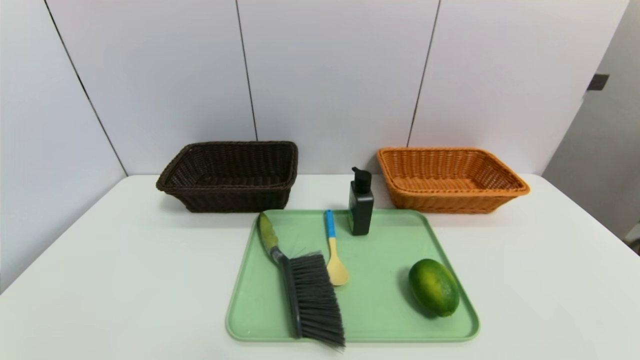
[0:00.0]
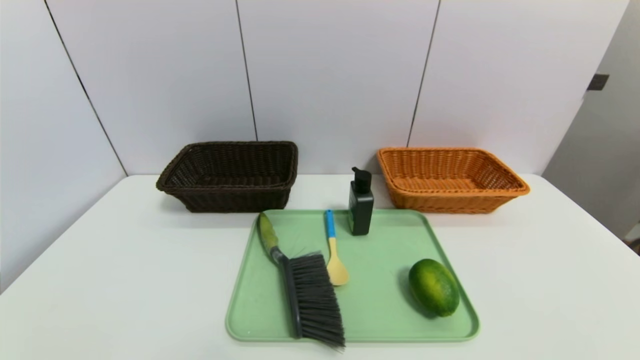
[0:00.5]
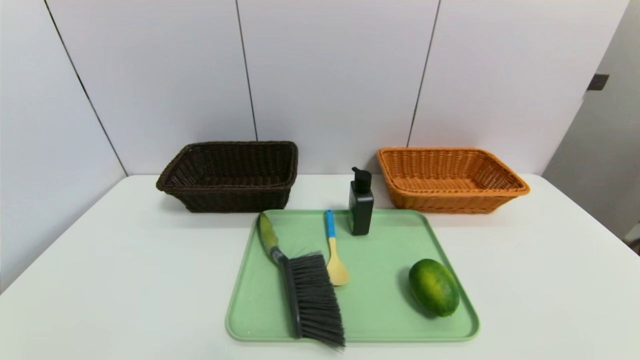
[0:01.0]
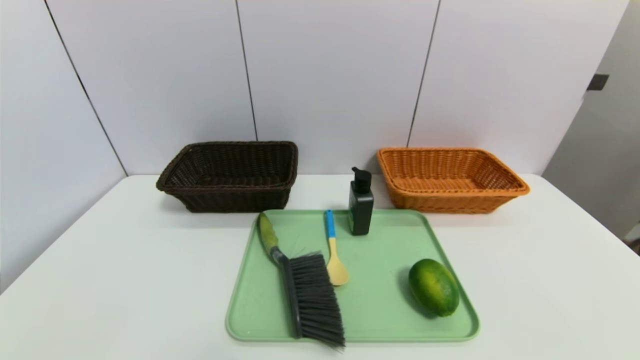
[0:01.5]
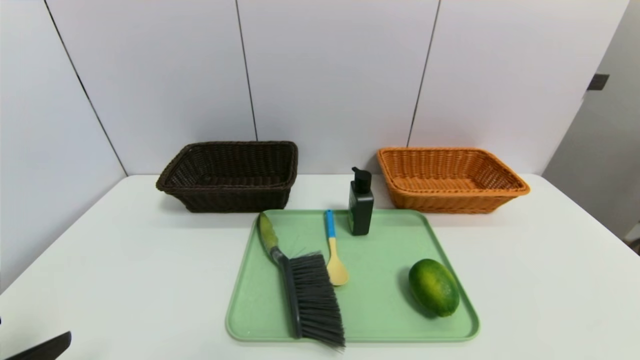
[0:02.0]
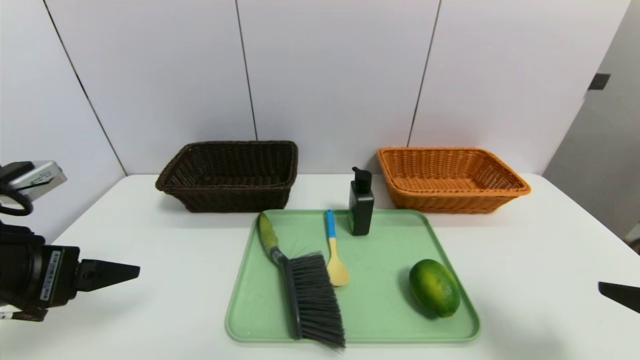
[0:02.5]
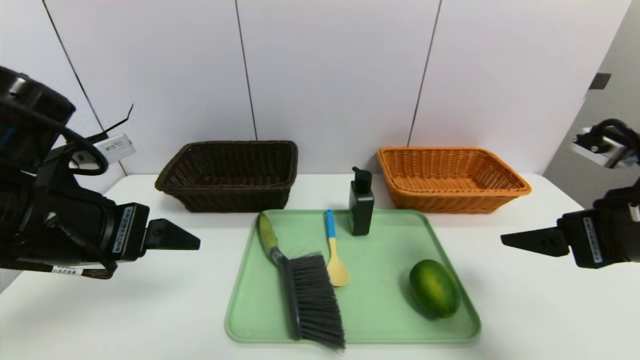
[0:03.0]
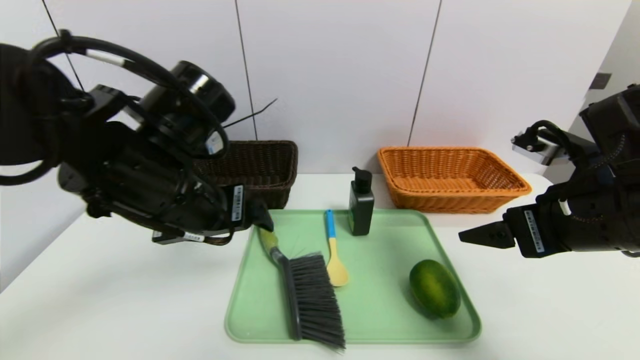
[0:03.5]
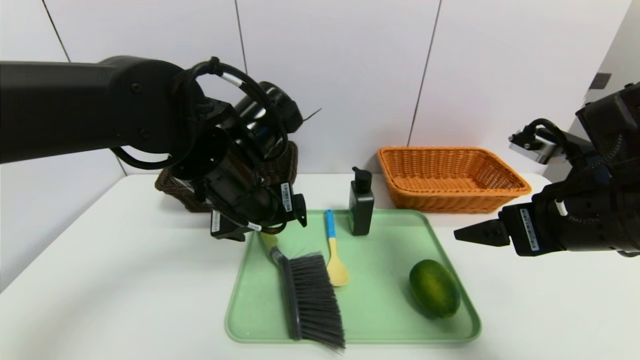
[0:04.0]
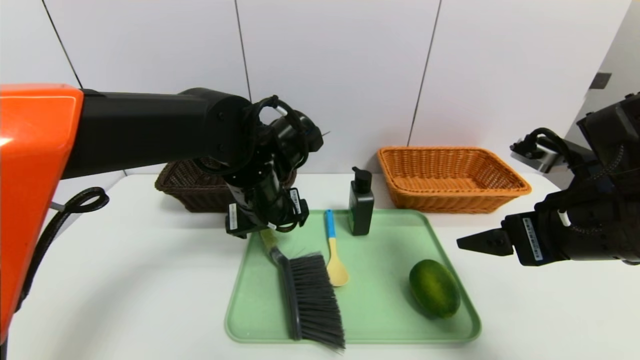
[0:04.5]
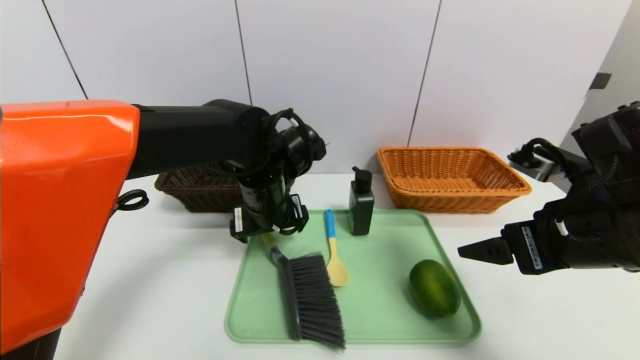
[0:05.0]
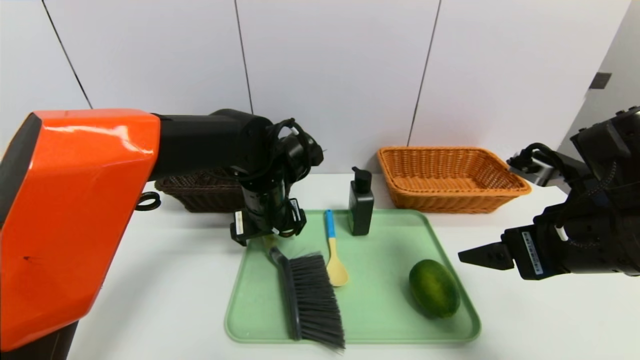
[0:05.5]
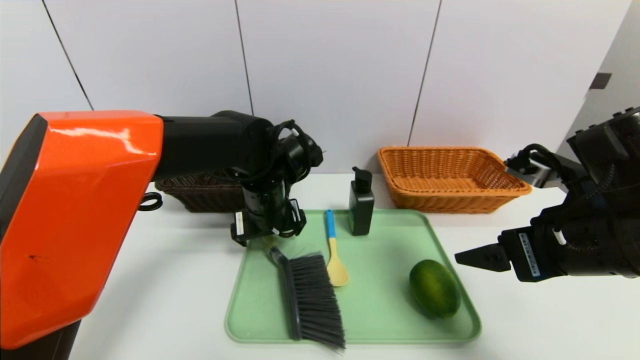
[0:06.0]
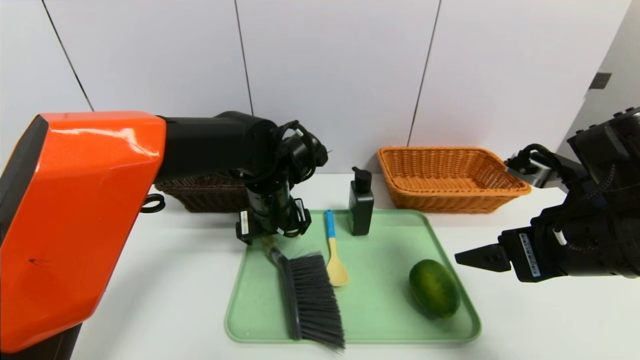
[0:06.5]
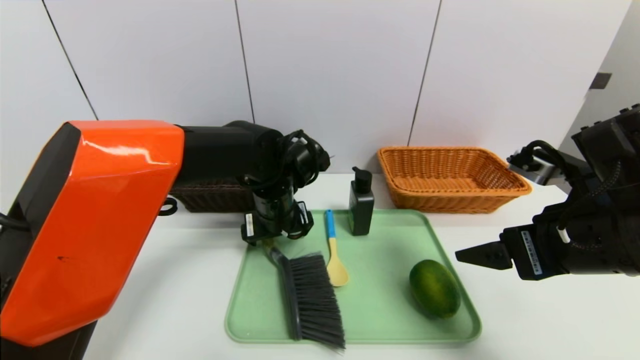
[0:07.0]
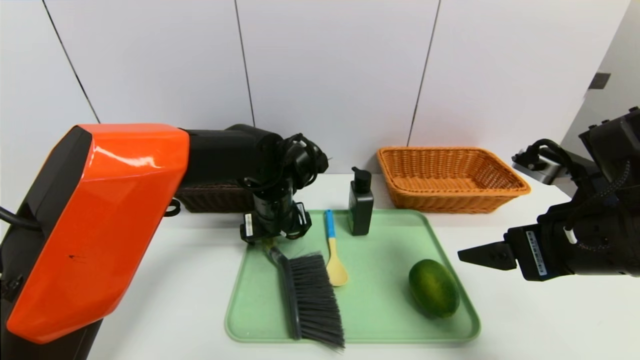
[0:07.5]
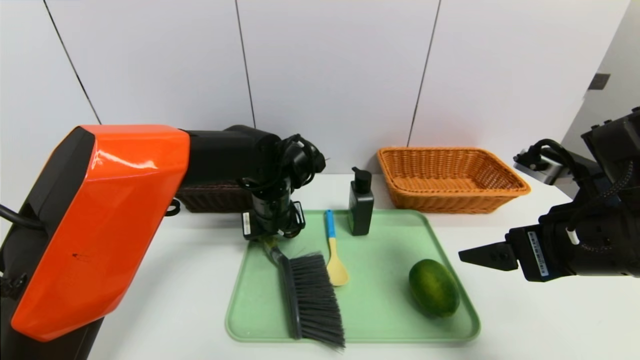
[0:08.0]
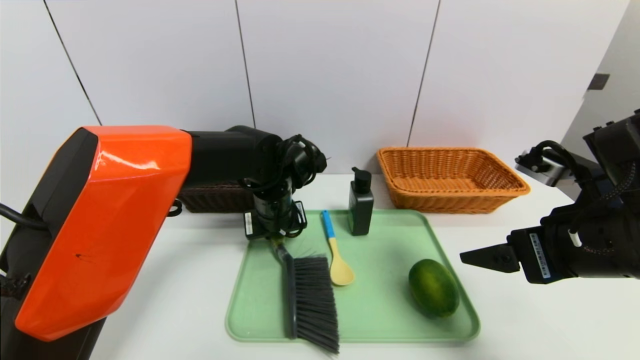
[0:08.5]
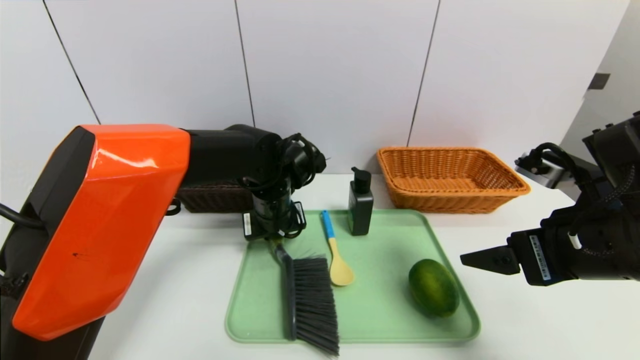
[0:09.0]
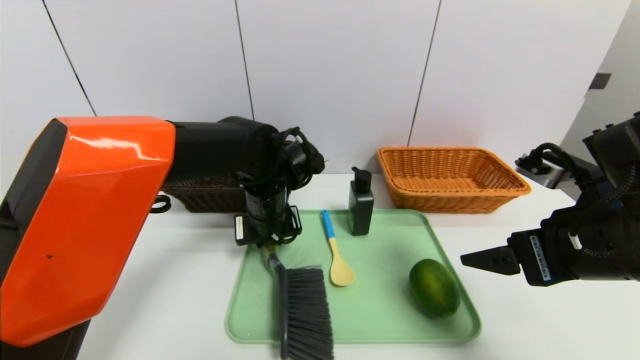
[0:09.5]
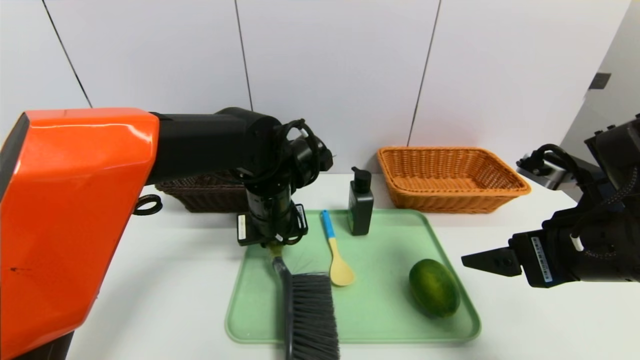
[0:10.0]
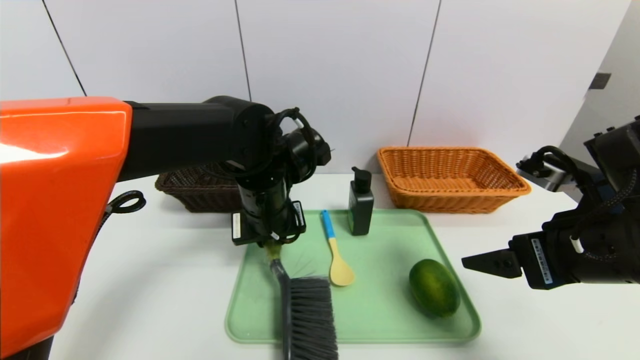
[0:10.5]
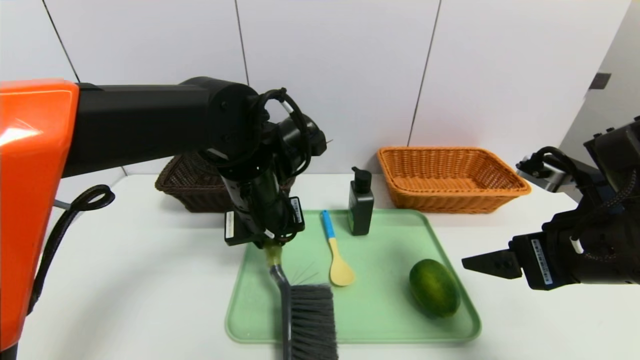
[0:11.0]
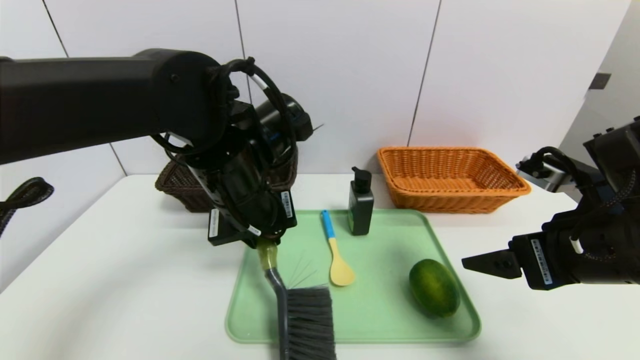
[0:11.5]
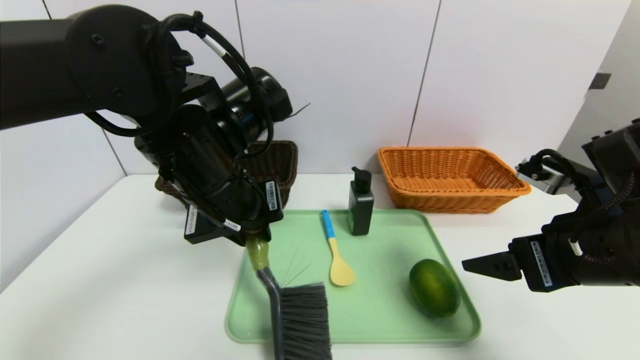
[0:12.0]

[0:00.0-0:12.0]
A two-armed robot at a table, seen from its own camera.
Task of the whole recording: place the food in the right basket with the right gripper, and place the non food items in the left basket with the left gripper.
0:00.0 to 0:02.0: The left gripper heads upward and forward, covering some 15 cm.
0:02.0 to 0:04.0: The left gripper moves forward and to the right, approximately 30 cm. The right gripper travels forward and to the left by about 25 cm.
0:04.0 to 0:06.0: The left gripper is displaced forward and downward by approximately 10 cm.
0:06.0 to 0:08.0: There are only small adjustments of the grippers.
0:08.0 to 0:10.0: The left gripper changes place by roughly 5 cm, and closes.
0:10.0 to 0:12.0: The left gripper heads upward and backward, covering some 10 cm.

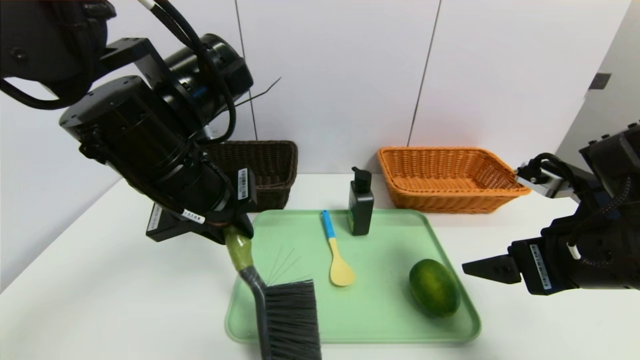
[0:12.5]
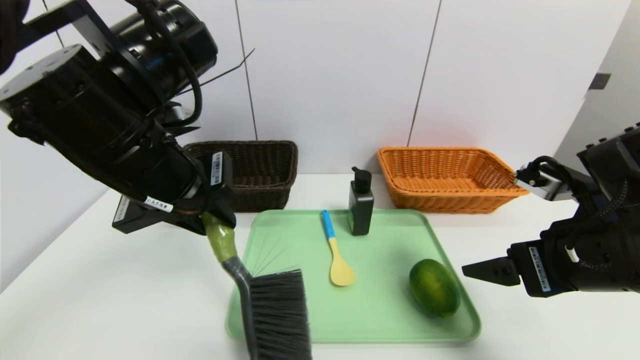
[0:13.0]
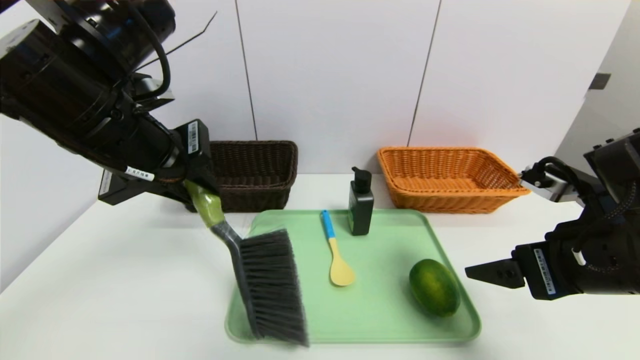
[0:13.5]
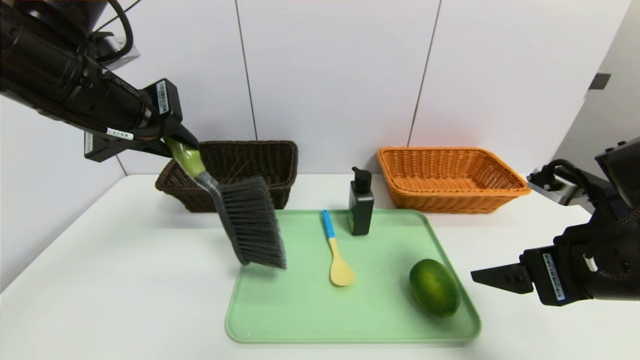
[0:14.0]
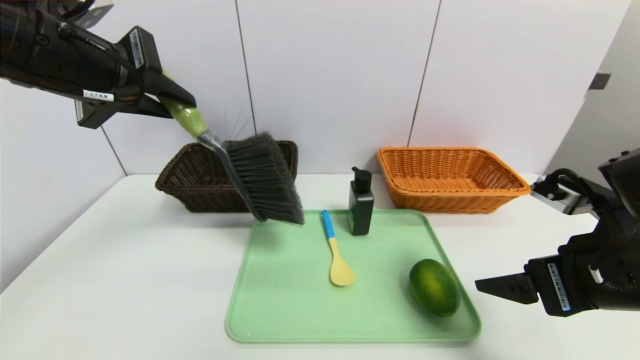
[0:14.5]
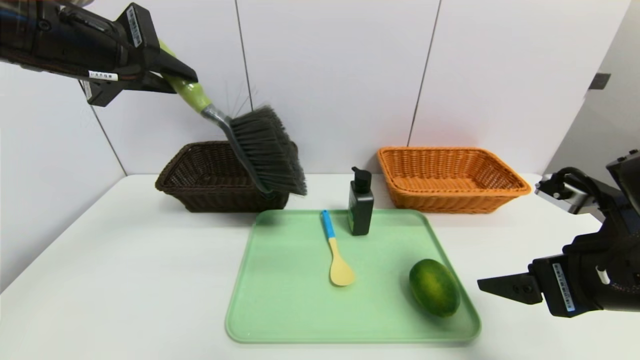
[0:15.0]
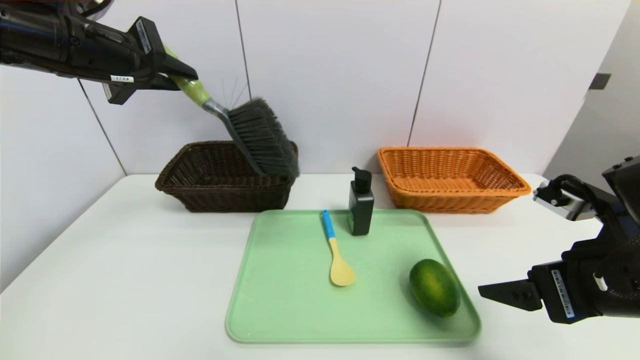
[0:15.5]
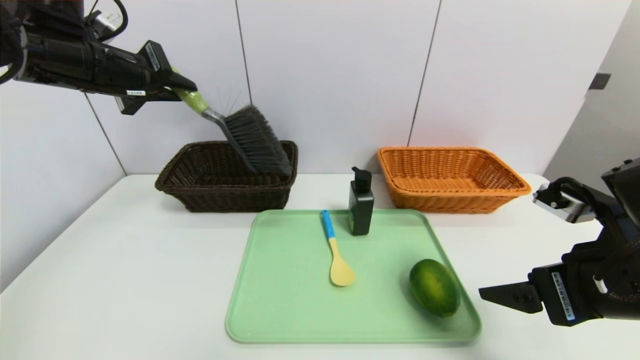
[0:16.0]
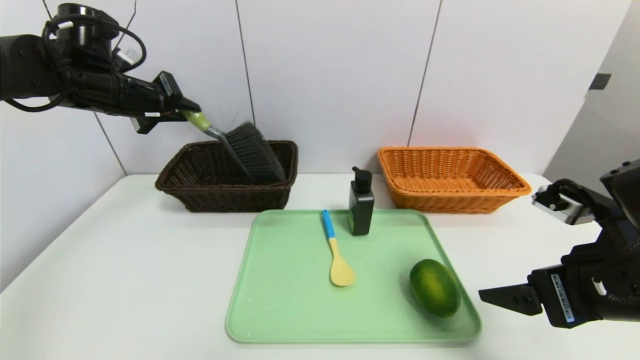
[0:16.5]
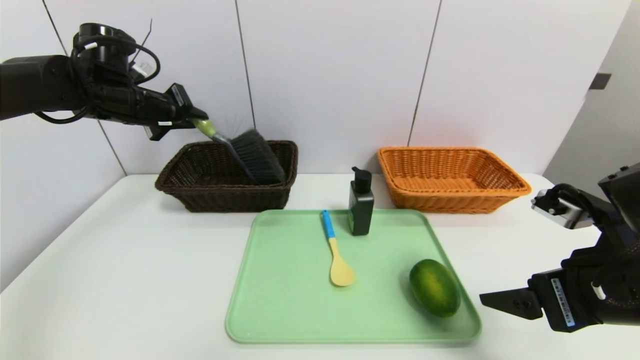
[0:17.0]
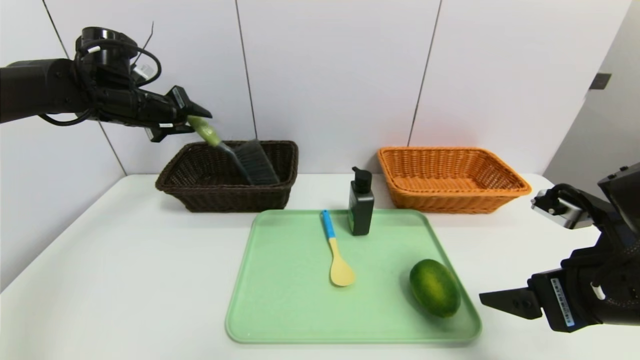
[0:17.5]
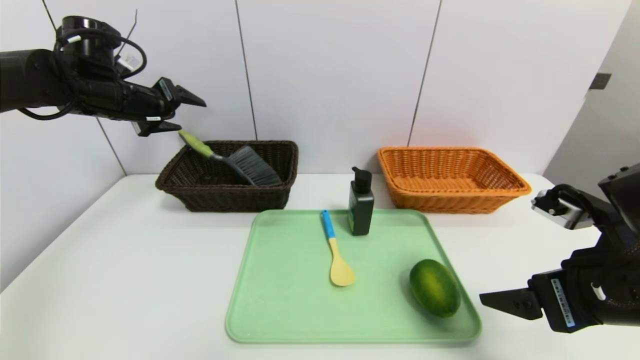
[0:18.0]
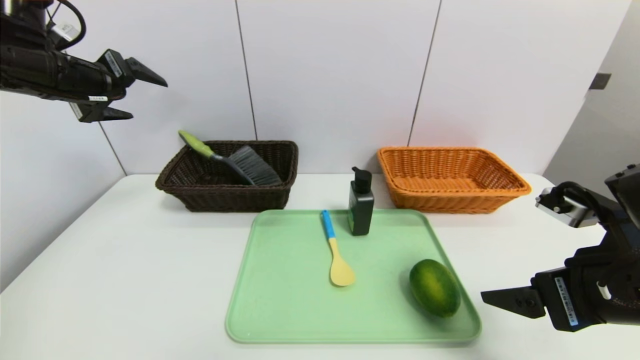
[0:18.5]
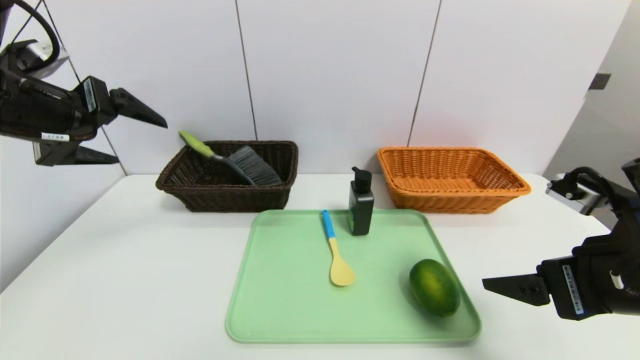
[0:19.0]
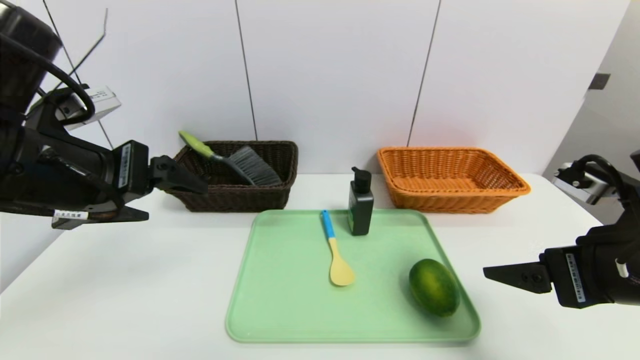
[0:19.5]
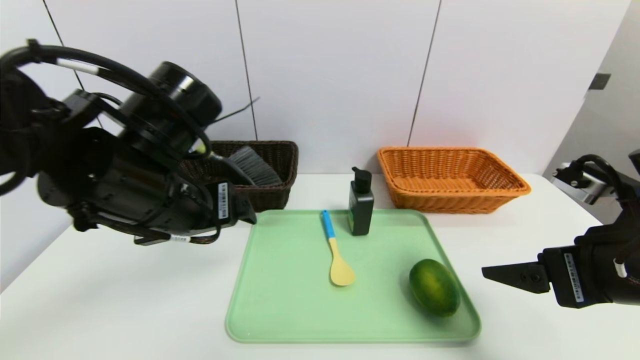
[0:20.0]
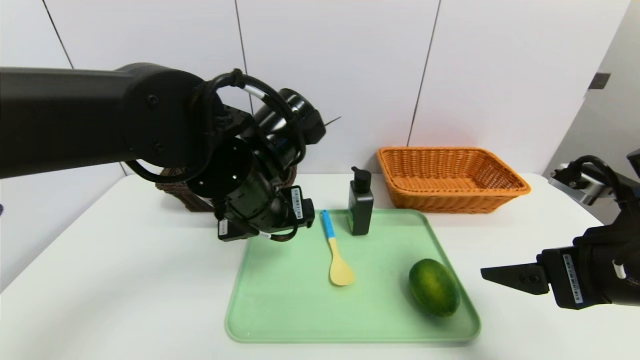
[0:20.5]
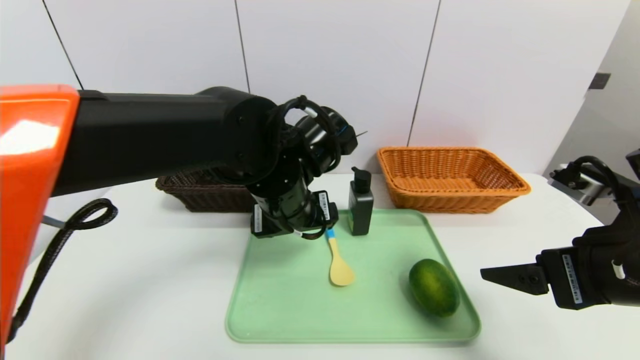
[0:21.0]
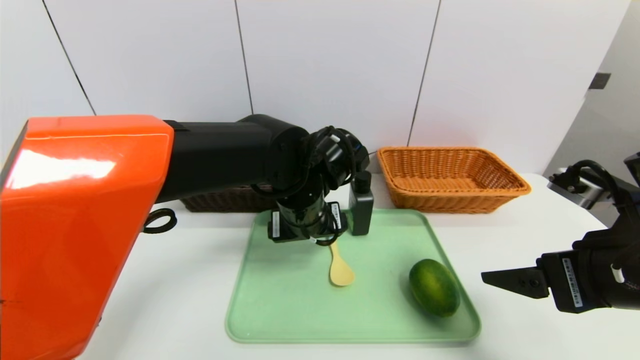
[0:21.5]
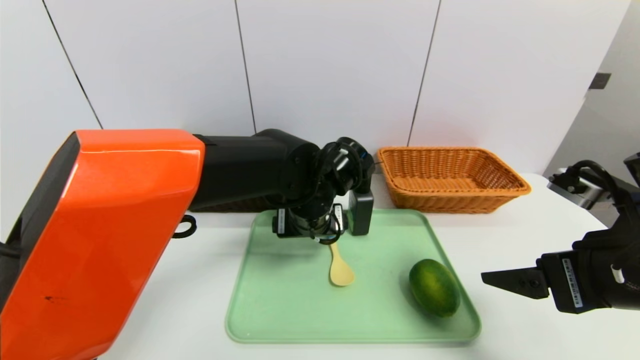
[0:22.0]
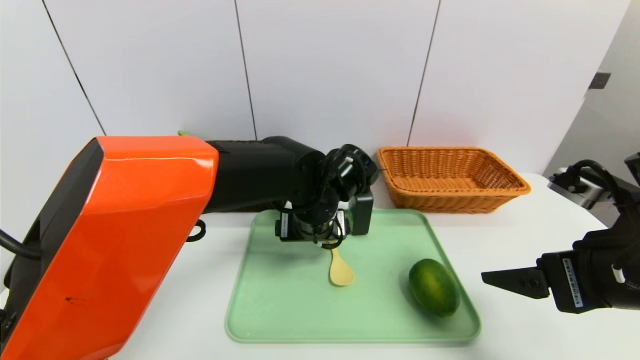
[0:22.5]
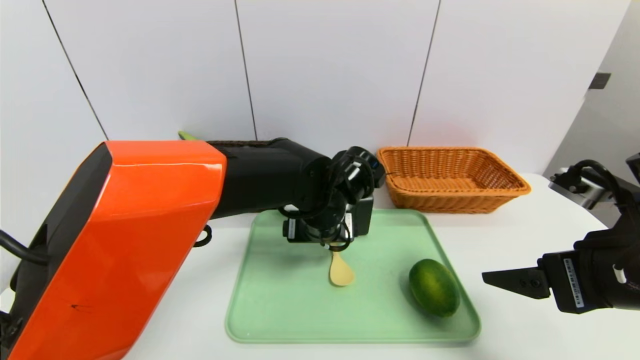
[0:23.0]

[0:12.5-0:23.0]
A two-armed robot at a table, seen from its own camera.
Task of the whole recording: place the food in the right basket with the right gripper, and place the non food items in the left basket with the left gripper.
Step, 0:12.5 to 0:17.5: Grasp the brush and put it in the left basket.
0:12.5 to 0:14.5: The left gripper moves to the left and upward, some 10 cm.
0:14.5 to 0:16.5: The left gripper travels forward, downward and to the left by approximately 20 cm.
0:16.5 to 0:19.0: The left gripper heads backward, covering about 15 cm, and opens its fingers.
0:19.0 to 0:21.0: The left gripper is displaced to the right and downward by about 25 cm.
0:21.0 to 0:23.0: The left gripper goes some 5 cm downward.
